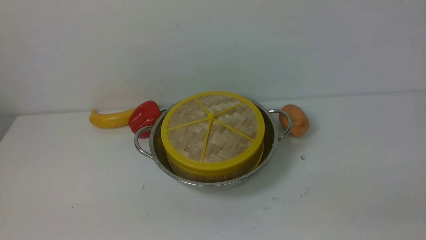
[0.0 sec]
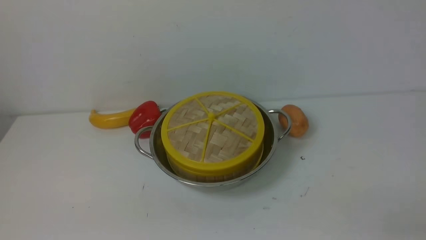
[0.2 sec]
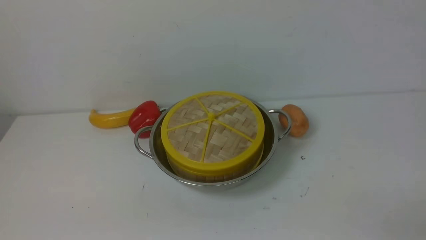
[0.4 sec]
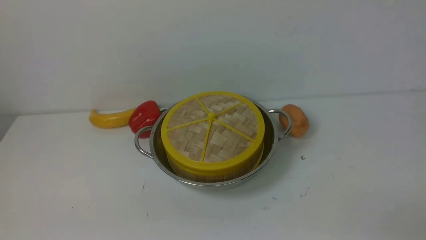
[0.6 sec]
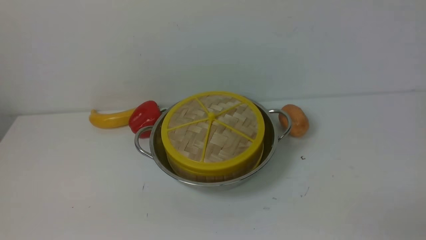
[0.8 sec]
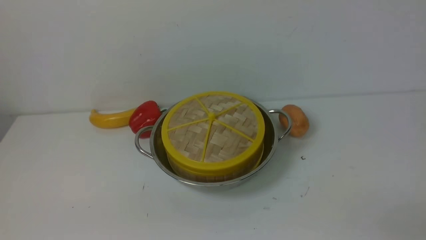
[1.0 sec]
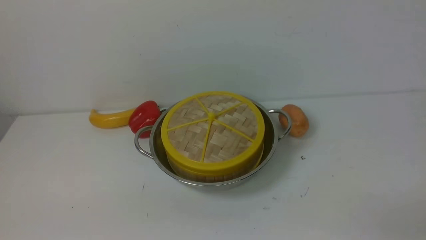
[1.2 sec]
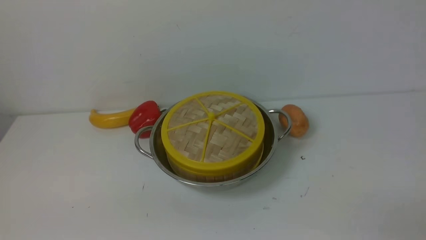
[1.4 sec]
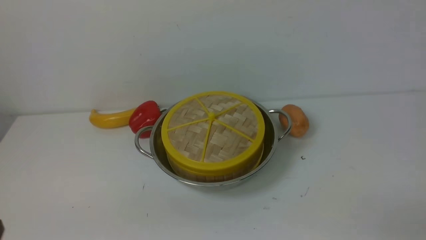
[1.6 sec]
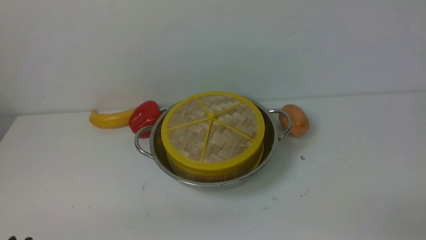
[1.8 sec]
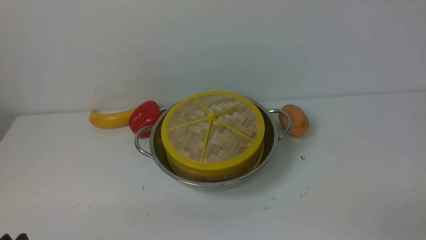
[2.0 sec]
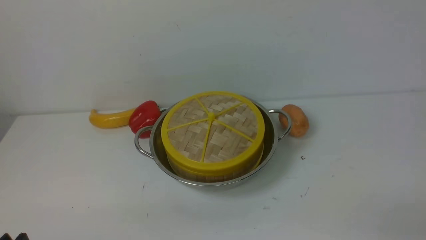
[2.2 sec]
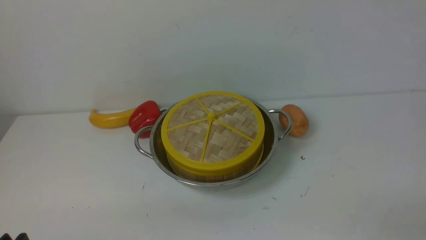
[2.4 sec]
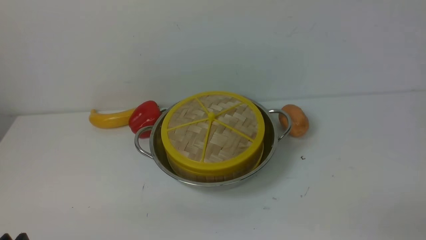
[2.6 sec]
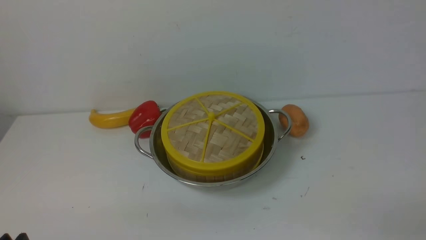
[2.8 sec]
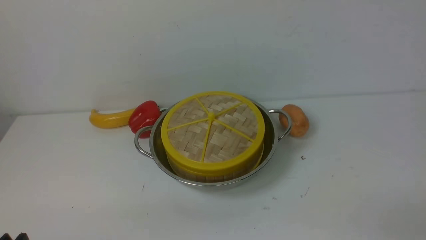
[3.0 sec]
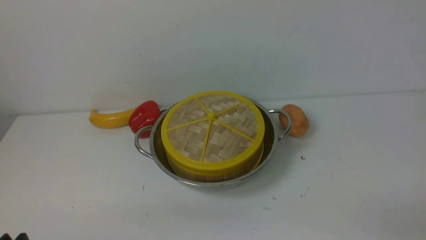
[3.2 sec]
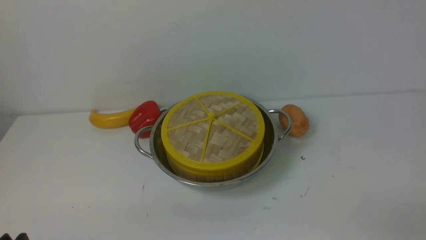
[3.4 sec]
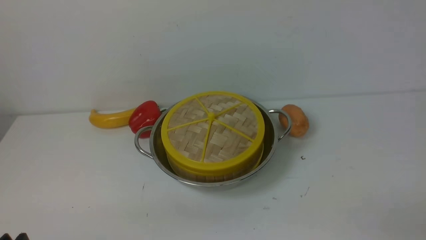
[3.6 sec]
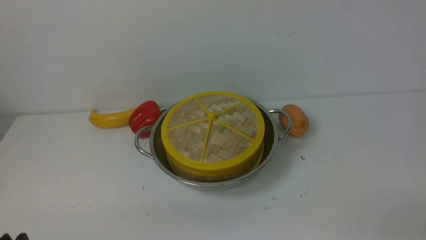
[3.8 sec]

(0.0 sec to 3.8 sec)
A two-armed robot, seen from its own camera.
Task of the whole recording: place the steamer in the pot on the white table, and put the lid on the steamer.
2.6 sec - 3.8 sec: Both grippers stay put.
